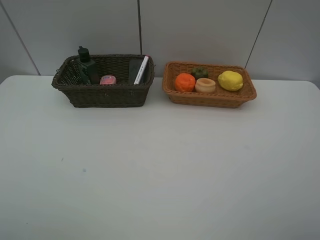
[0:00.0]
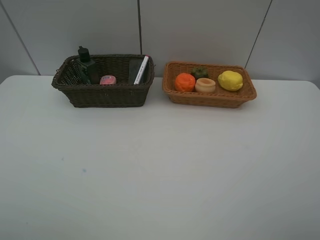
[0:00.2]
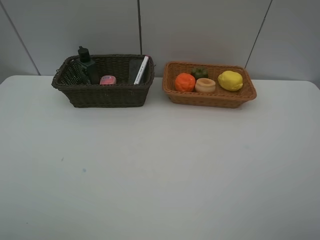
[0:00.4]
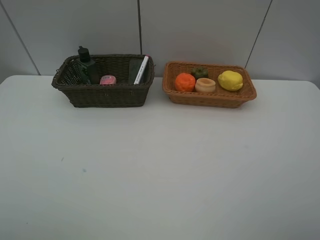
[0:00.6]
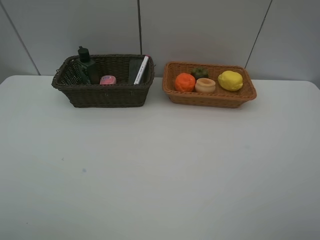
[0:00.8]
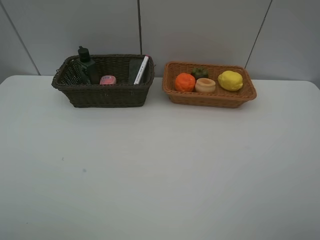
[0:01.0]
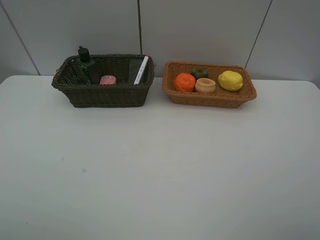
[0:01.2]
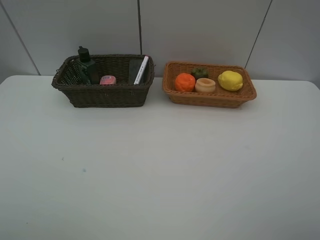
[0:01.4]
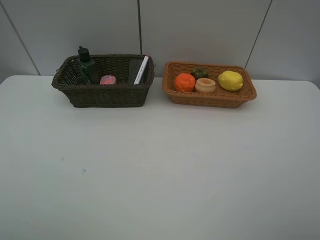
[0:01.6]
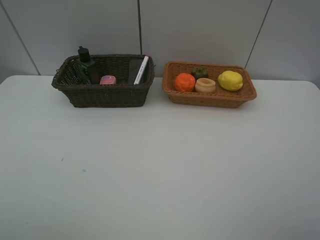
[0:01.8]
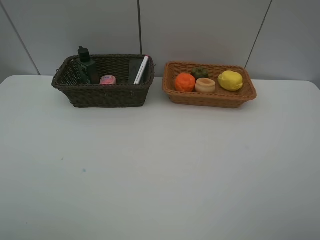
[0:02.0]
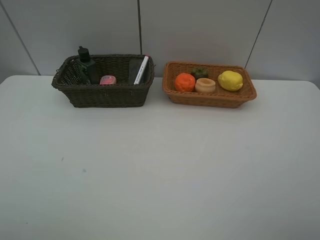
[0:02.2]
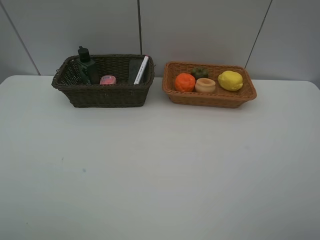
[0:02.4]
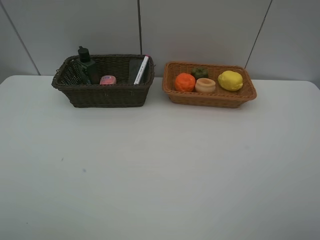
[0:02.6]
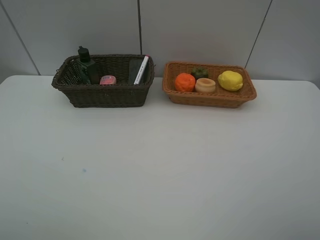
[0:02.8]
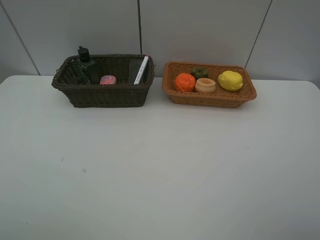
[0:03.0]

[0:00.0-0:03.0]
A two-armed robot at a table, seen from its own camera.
Task of the whole recording: Place multiple objects separately in different baskets.
0:01.6 to 0:03.0: Neither gripper changes place.
